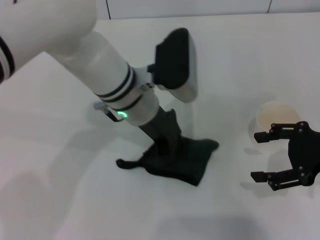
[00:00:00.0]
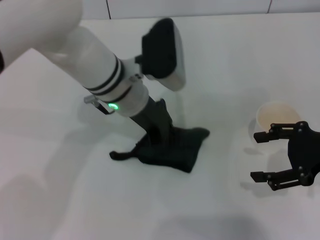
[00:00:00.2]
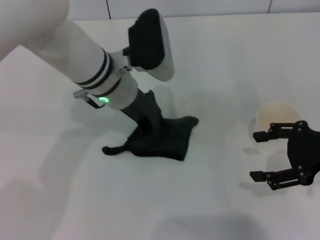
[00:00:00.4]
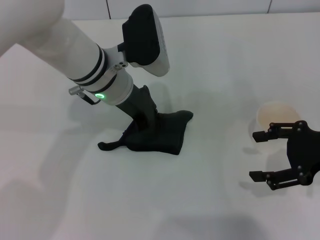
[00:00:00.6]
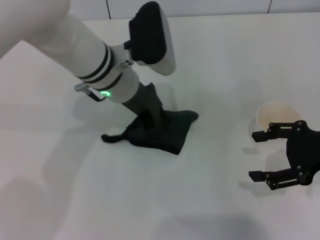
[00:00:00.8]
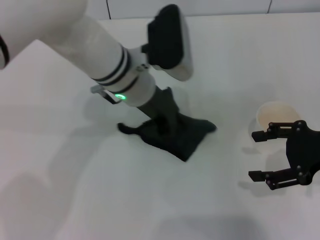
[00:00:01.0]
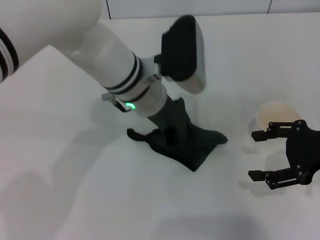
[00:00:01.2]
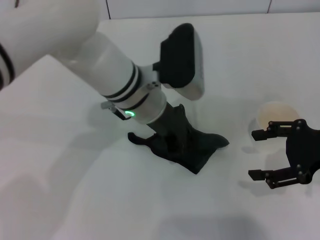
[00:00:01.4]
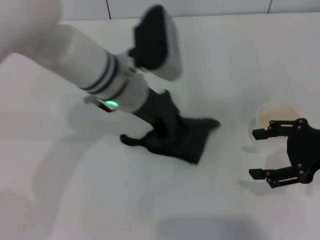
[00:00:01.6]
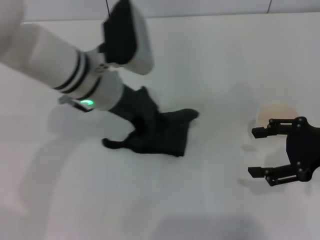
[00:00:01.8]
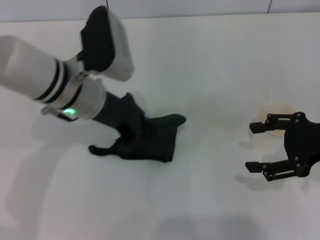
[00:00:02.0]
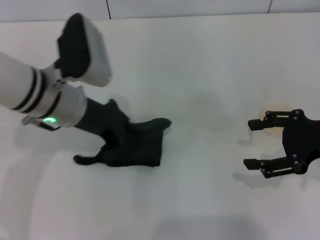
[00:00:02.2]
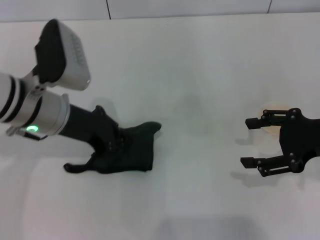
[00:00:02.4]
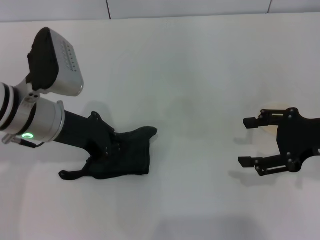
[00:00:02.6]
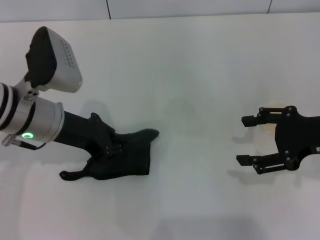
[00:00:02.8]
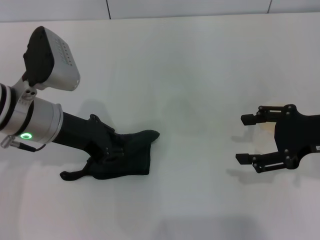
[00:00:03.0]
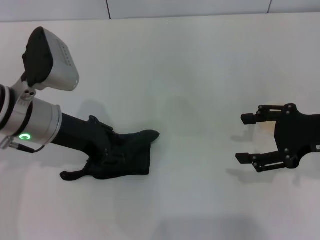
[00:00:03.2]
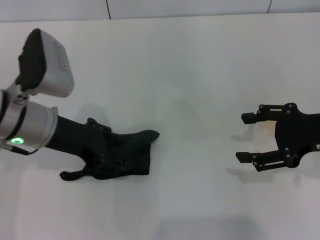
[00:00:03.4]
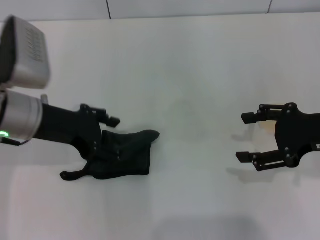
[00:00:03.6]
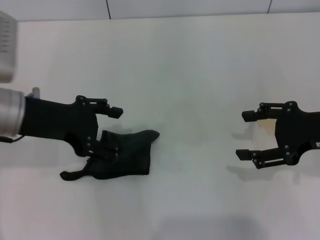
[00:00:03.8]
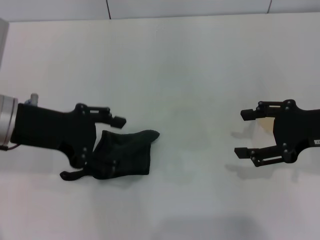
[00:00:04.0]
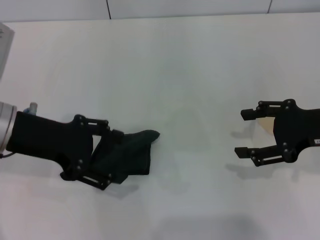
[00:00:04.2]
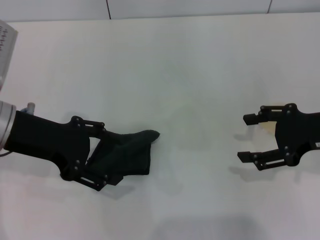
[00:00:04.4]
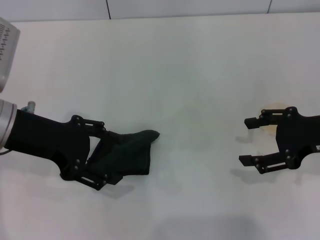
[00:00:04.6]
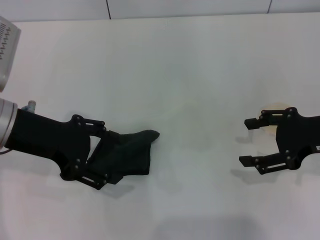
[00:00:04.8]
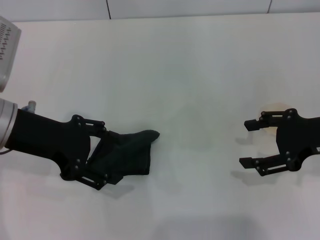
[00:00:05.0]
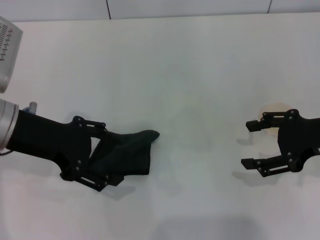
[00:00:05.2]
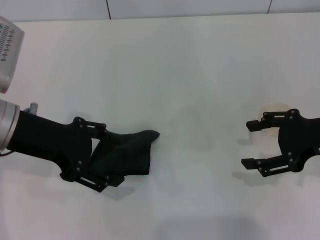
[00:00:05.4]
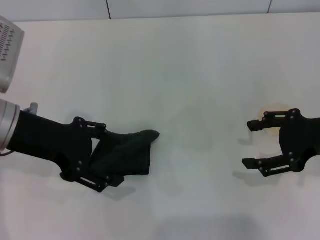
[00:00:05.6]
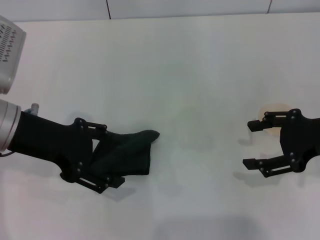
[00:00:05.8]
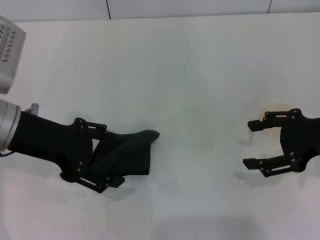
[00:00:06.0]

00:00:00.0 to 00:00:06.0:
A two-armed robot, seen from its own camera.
Step, 00:00:00.0 to 00:00:02.0: Wipe the stains off the table with the left gripper.
Step, 00:00:02.2 to 00:00:04.0: Place the rag on the table with the left gripper.
00:00:00.0 to 00:00:01.6: The grippers move only a little.
00:00:01.6 to 00:00:03.0: The left gripper shifts approximately 10 cm to the left.
00:00:03.0 to 00:00:04.4: The left gripper changes place by roughly 5 cm, and opens its fingers.
00:00:04.4 to 00:00:06.0: The two grippers keep their place.

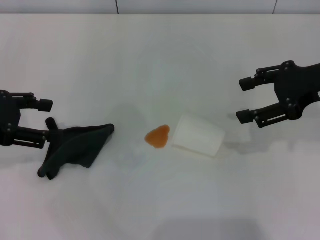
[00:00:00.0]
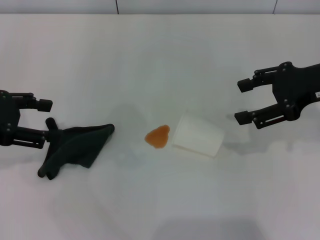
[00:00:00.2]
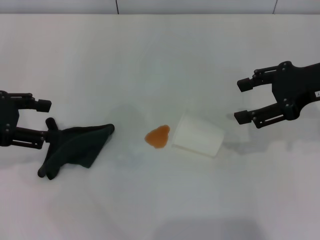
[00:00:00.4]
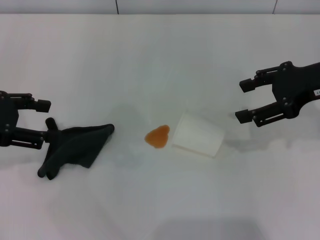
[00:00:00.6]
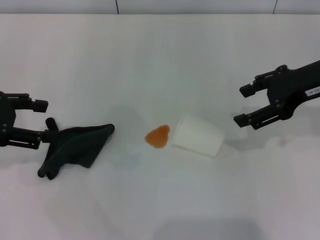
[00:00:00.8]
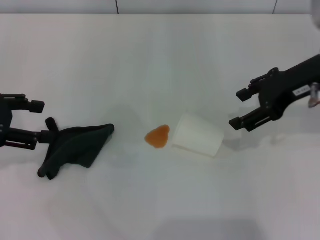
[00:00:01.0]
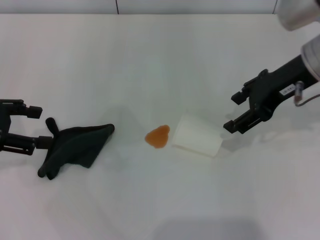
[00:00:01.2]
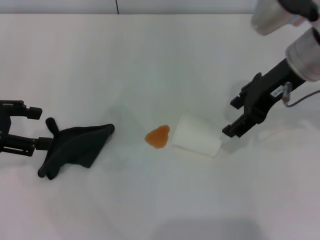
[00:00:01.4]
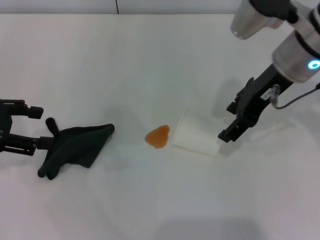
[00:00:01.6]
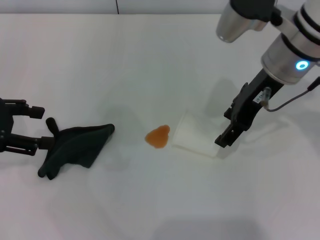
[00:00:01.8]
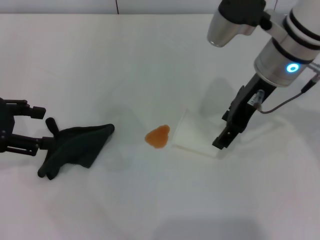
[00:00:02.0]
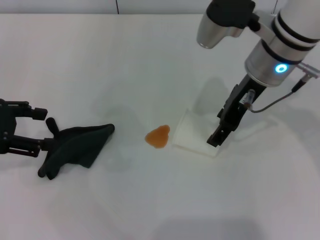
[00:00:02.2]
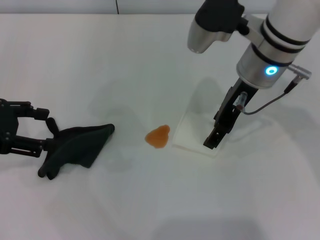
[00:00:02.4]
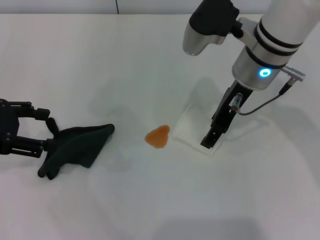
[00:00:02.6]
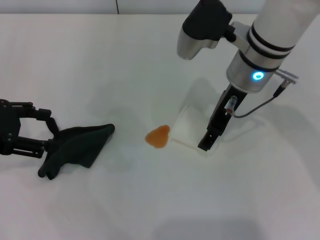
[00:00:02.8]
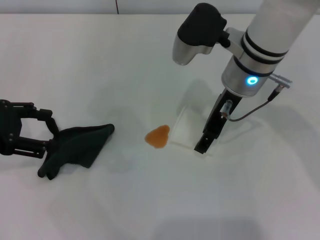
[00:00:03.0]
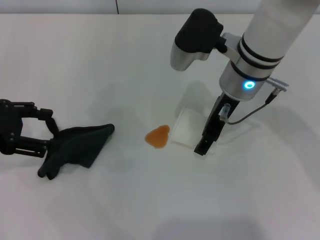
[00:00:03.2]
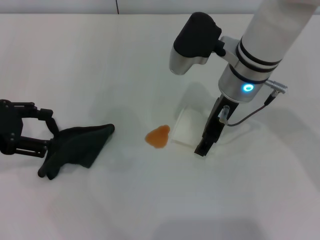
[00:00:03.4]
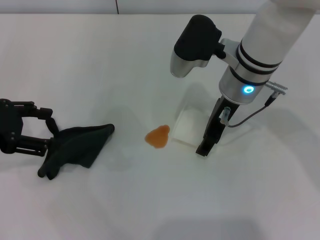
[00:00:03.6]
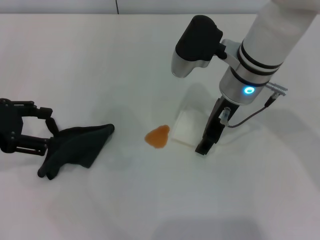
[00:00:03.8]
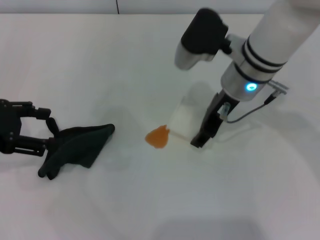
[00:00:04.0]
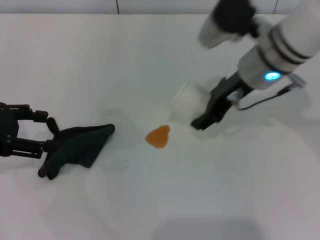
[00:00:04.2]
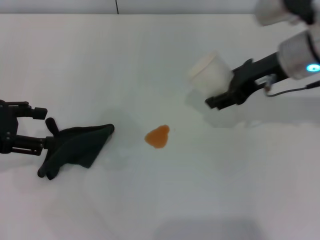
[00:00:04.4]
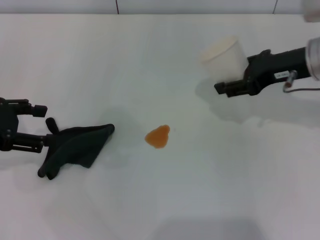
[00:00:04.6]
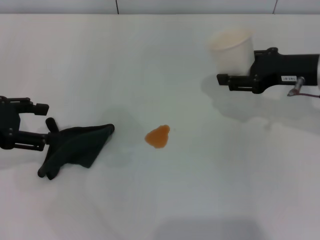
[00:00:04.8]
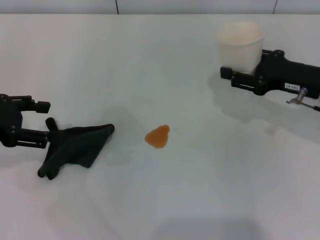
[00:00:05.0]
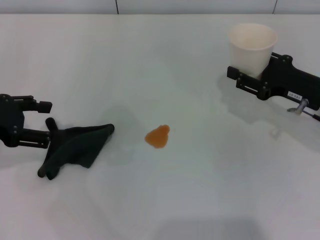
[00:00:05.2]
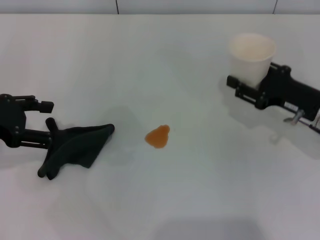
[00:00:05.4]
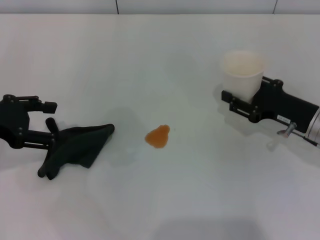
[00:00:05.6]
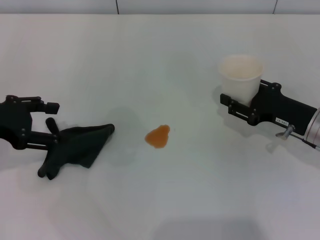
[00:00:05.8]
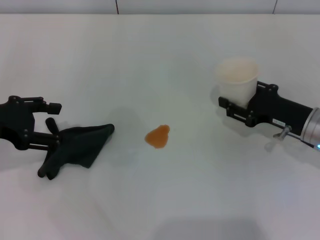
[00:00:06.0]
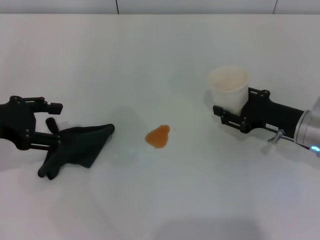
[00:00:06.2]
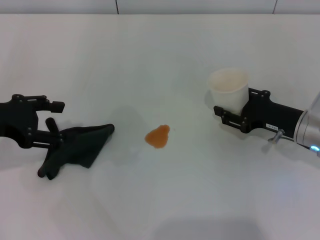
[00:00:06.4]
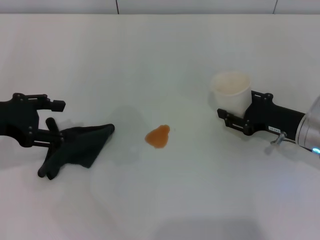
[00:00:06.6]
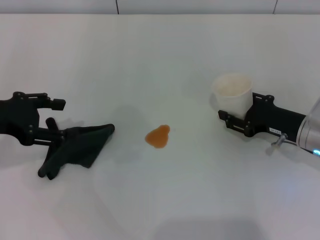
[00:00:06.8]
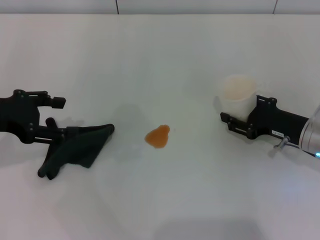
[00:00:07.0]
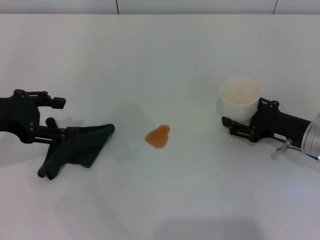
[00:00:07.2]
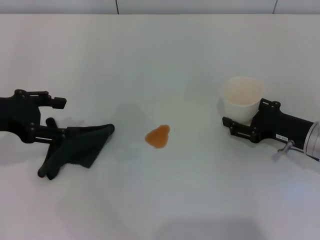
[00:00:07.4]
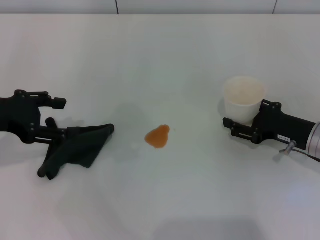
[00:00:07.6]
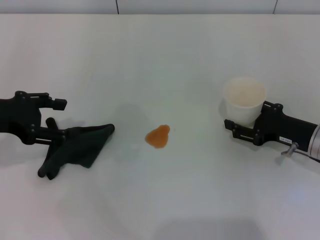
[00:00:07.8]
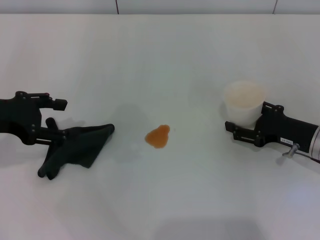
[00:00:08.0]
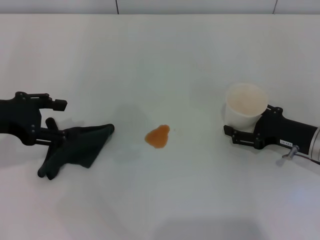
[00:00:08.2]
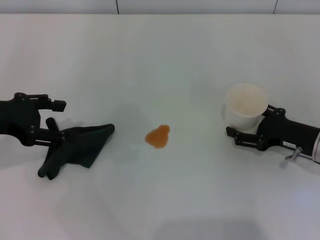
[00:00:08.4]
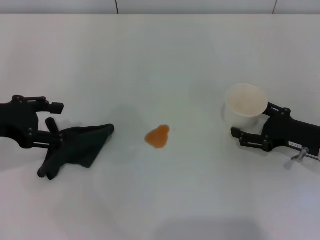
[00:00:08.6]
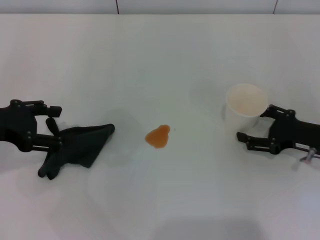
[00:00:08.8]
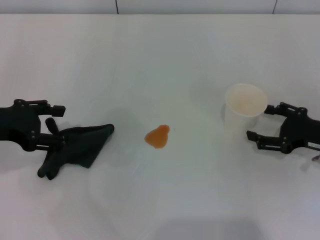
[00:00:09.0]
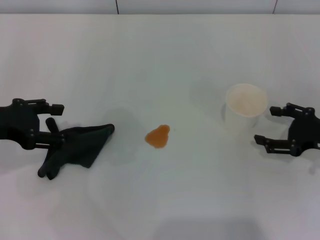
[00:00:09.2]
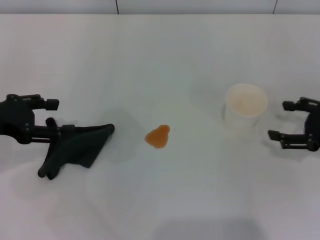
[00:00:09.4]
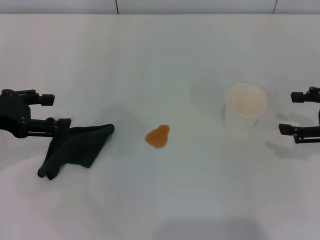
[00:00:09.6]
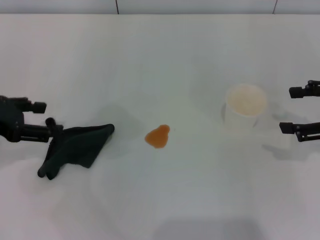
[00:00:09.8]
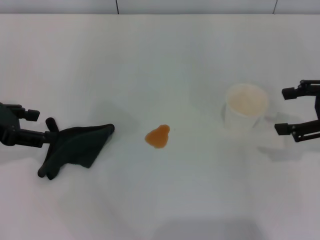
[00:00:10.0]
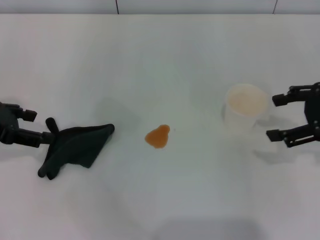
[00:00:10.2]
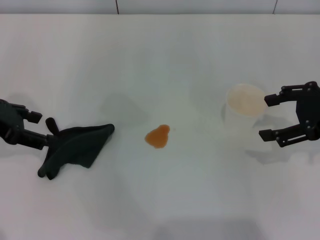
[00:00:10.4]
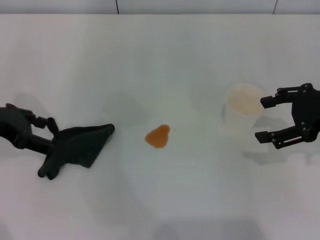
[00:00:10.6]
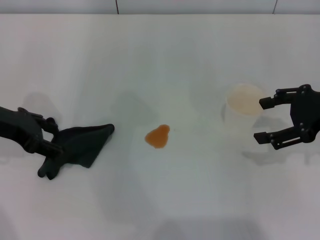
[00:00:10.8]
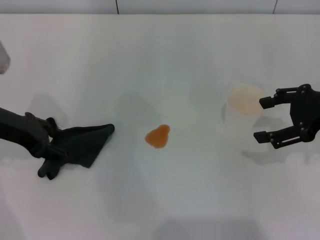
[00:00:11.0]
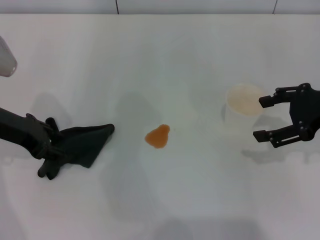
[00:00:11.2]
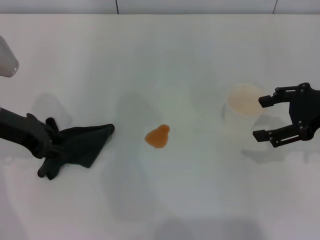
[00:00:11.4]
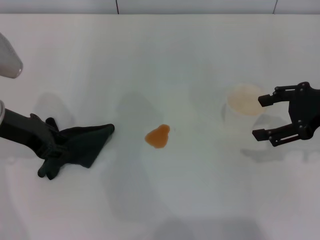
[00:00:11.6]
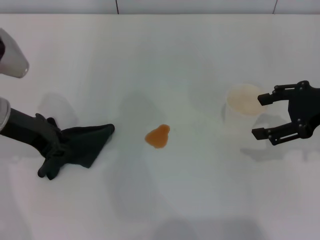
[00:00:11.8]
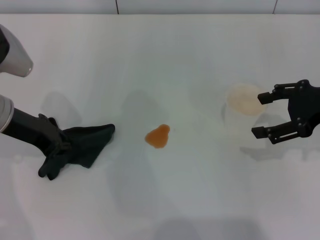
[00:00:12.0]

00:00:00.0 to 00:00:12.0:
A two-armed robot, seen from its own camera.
Step, 00:00:00.0 to 00:00:03.6: Grasp the paper cup with the right gripper.
Step, 00:00:03.8 to 00:00:09.0: Stand the paper cup upright with the right gripper.
Step, 00:00:09.2 to 00:00:12.0: Grasp the rag with the left gripper.
00:00:00.0 to 00:00:01.6: The right gripper heads to the left, covering approximately 10 cm.
00:00:01.6 to 00:00:03.0: The right gripper shifts approximately 5 cm to the left.
00:00:03.0 to 00:00:04.4: The right gripper moves to the right, approximately 10 cm, and closes its fingers.
00:00:04.4 to 00:00:06.0: The right gripper moves downward, to the right and backward, about 15 cm.
00:00:06.0 to 00:00:07.6: The right gripper opens up.
00:00:07.6 to 00:00:09.0: The right gripper opens up.
00:00:09.0 to 00:00:10.4: The right gripper moves upward, some 15 cm.
00:00:10.4 to 00:00:12.0: The left gripper is displaced to the right by about 5 cm, and closes its fingers.

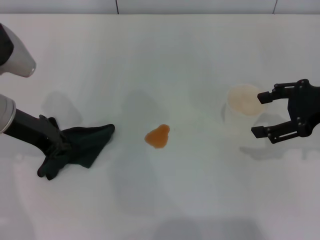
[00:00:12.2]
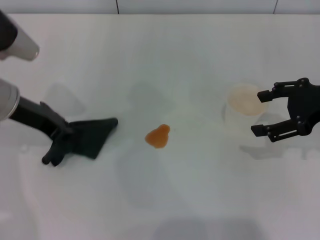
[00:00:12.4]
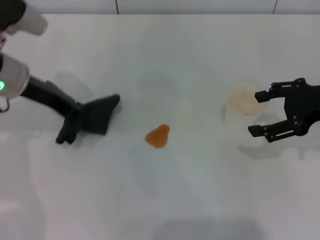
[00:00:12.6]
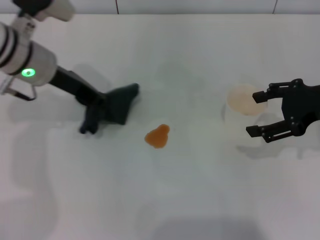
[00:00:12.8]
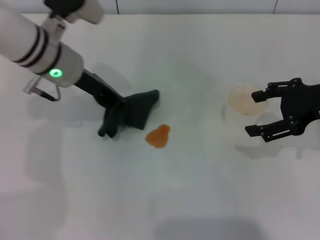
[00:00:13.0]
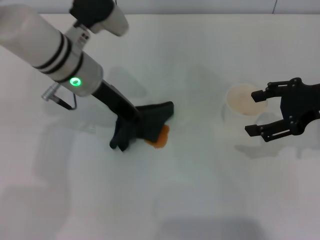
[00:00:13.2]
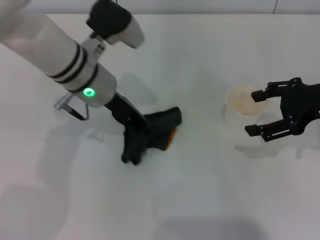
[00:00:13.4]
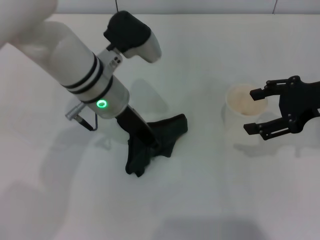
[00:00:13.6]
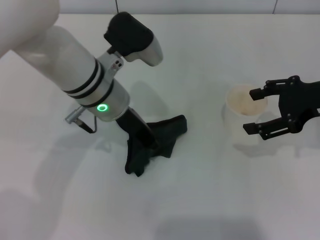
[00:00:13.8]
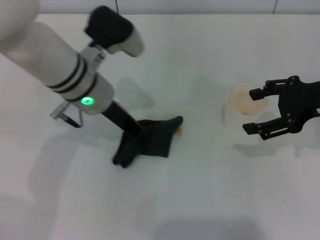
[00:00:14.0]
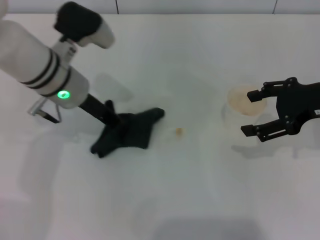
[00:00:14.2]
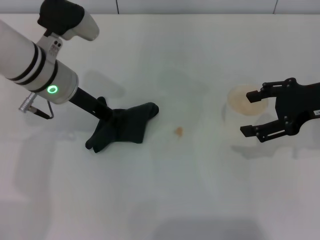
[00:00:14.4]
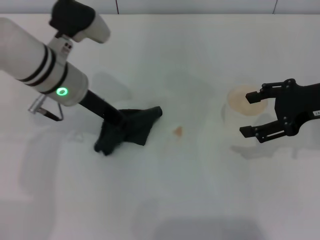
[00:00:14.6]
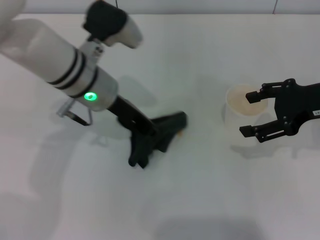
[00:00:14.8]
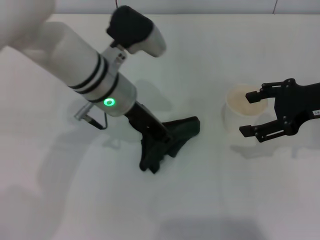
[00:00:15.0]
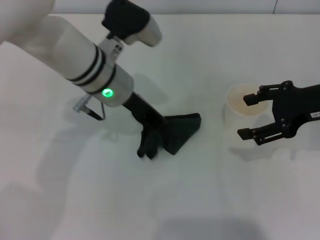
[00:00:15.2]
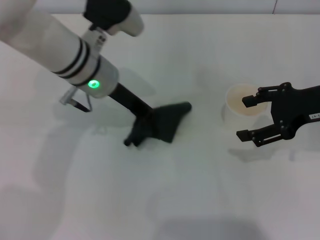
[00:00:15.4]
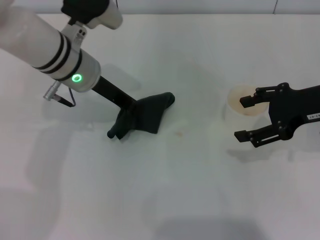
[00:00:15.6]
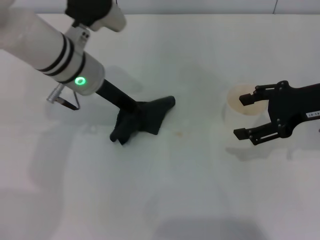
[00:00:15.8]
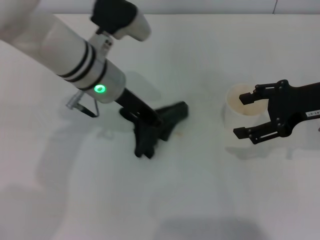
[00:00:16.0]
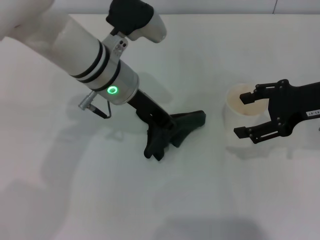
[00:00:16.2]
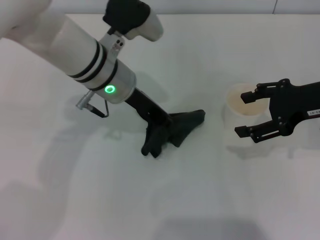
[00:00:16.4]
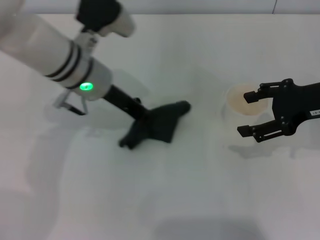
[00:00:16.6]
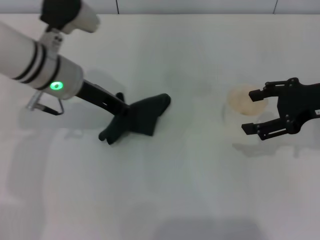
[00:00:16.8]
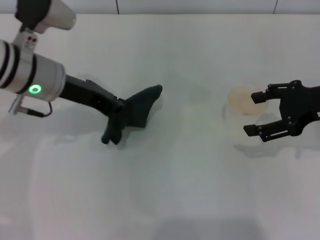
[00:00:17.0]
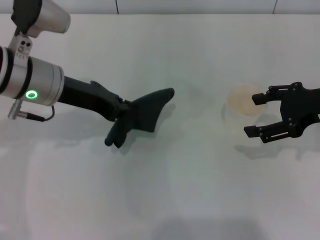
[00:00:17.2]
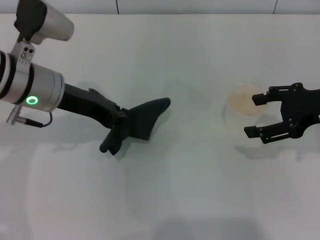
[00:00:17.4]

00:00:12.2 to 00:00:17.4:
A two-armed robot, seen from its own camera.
Step, 00:00:12.2 to 00:00:16.4: Wipe the stains off the table with the left gripper.
00:00:12.2 to 00:00:14.0: The left gripper travels to the right by roughly 15 cm.
00:00:14.0 to 00:00:15.6: The left gripper moves left and right over approximately 10 cm, changing direction 2 times.
00:00:15.6 to 00:00:17.4: The left gripper travels to the left by roughly 5 cm.
